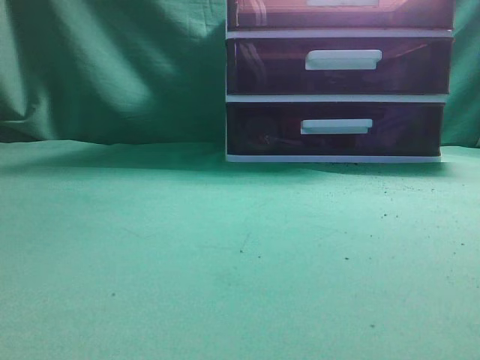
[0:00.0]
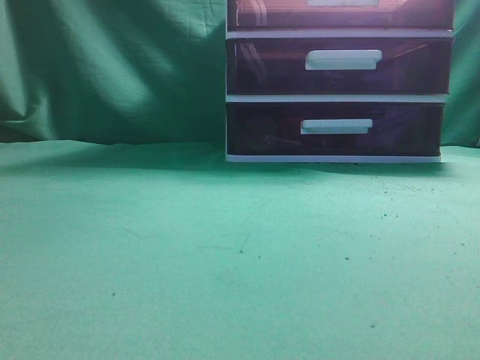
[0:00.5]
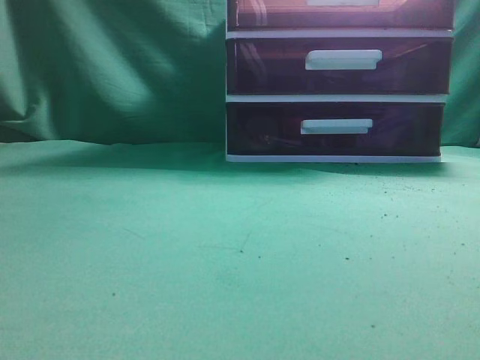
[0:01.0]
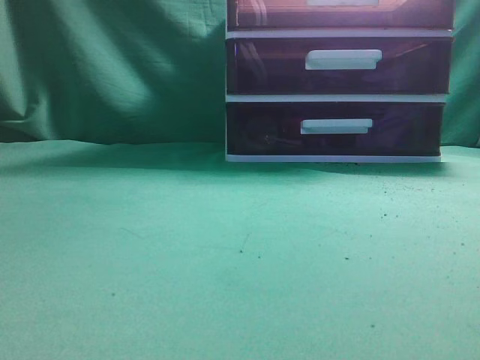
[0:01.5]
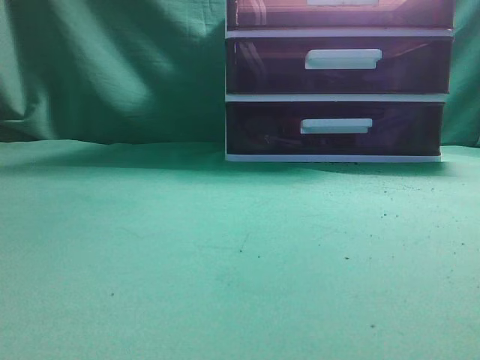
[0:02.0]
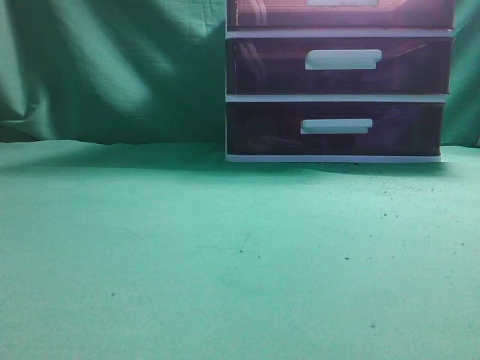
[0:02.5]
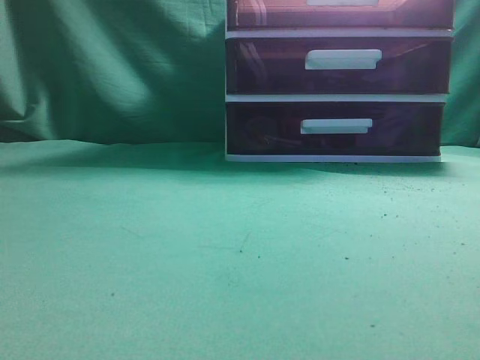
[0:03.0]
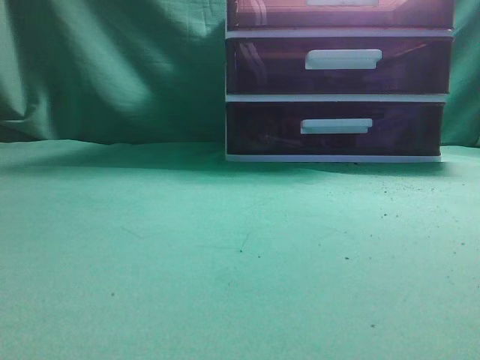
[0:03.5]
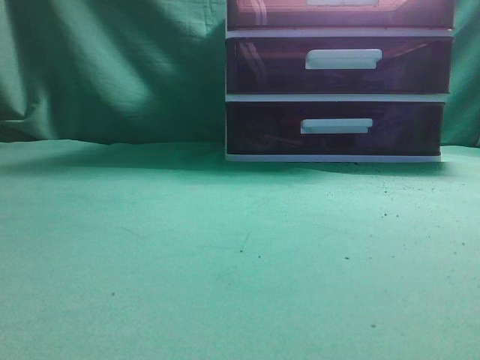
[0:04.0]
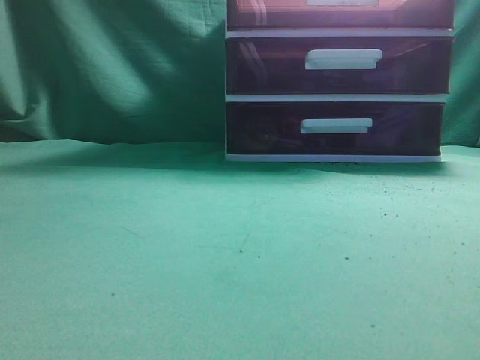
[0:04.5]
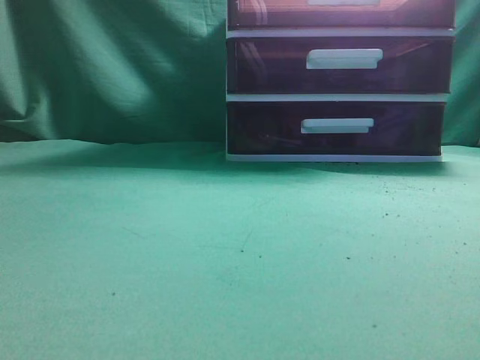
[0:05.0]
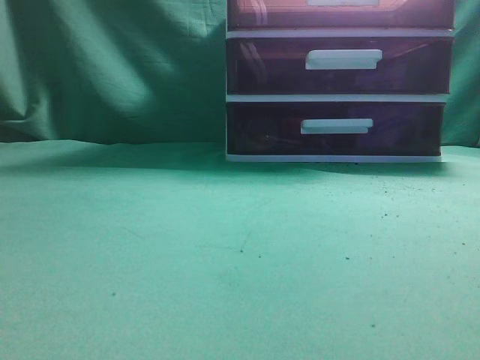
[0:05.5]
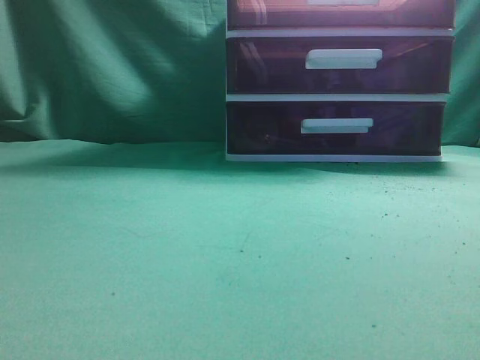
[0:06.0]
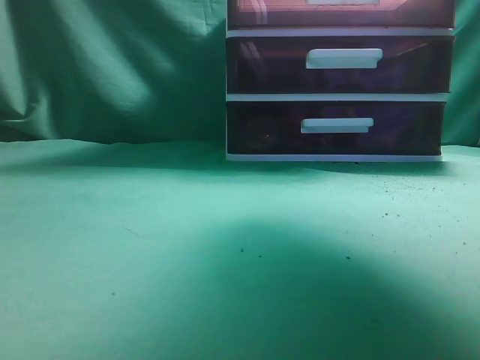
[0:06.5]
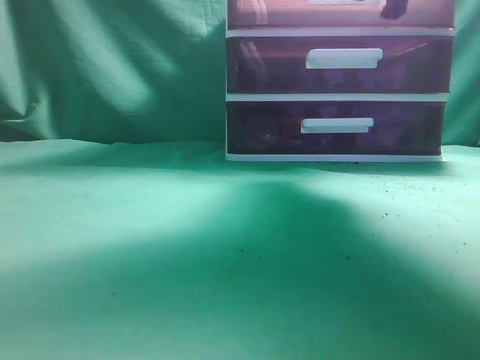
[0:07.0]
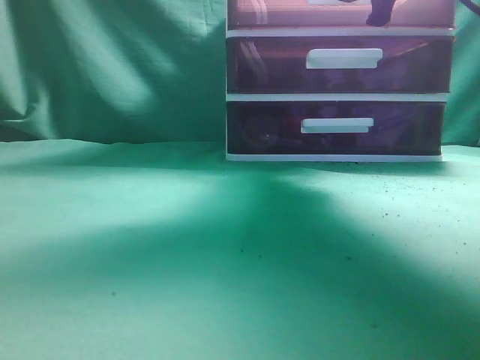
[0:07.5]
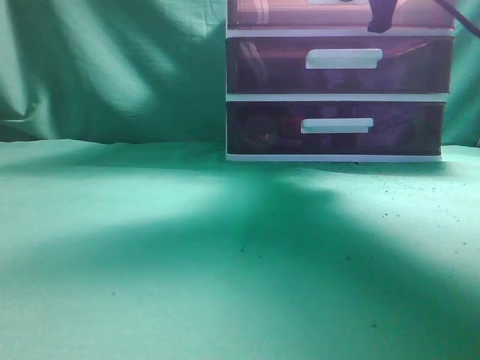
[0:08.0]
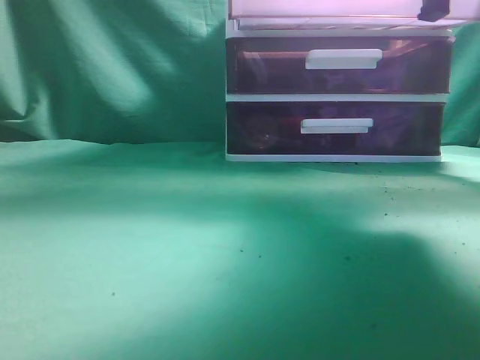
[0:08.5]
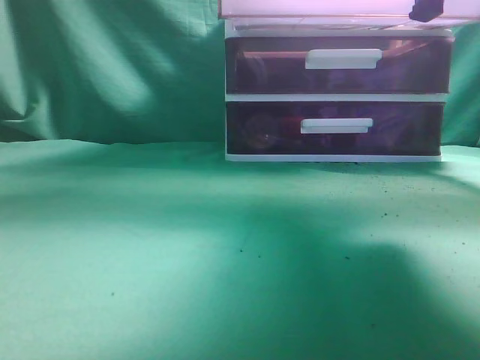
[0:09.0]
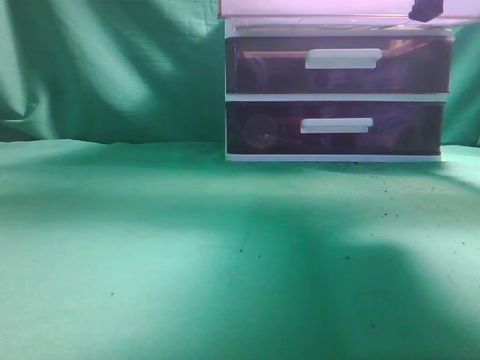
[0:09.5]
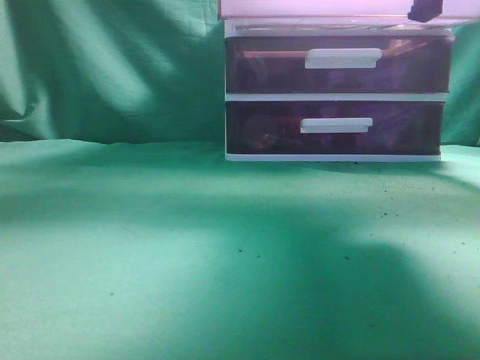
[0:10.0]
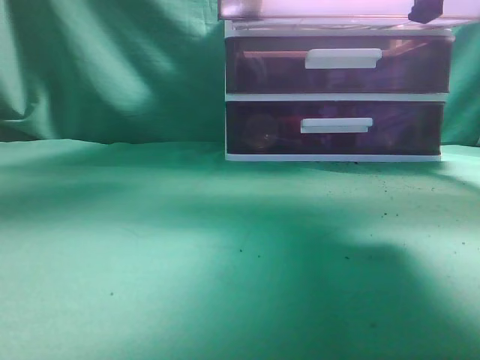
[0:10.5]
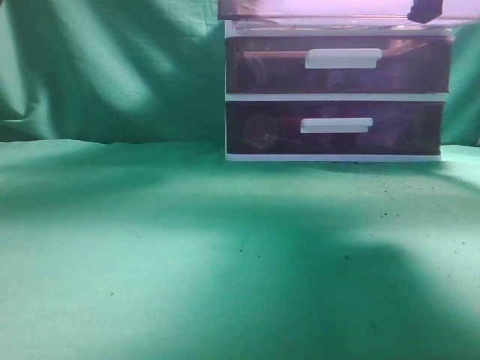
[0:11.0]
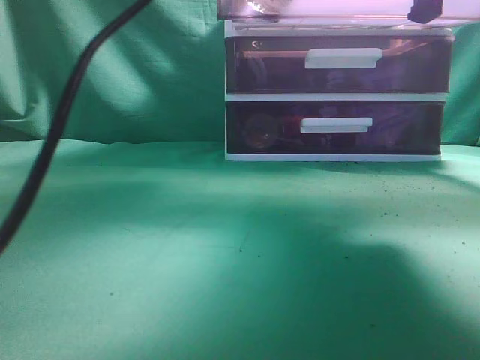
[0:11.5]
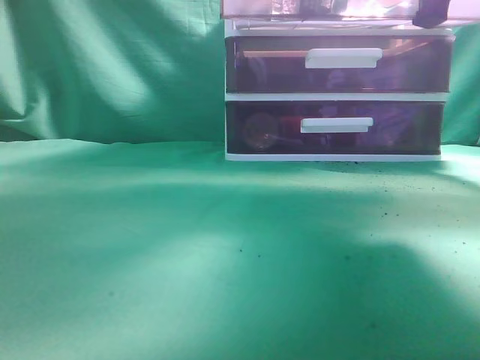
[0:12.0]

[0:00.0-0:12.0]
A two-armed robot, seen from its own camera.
Task of the whole recording: place the water bottle into the drawer.
Step, 0:00.0 to 0:09.0: Open the drawer.
0:06.0 to 0:08.0: The right gripper shifts about 25 cm forward.
0:08.0 to 0:10.0: The left gripper heads to the right, forward and upward, covering approximately 25 cm, while the right gripper travels backward by some 10 cm.
0:10.0 to 0:12.0: The left gripper travels to the right, forward and downward by approximately 15 cm, and opens up.

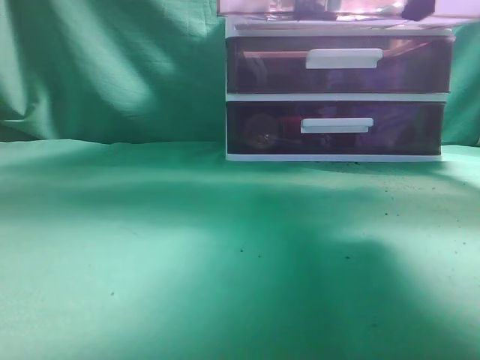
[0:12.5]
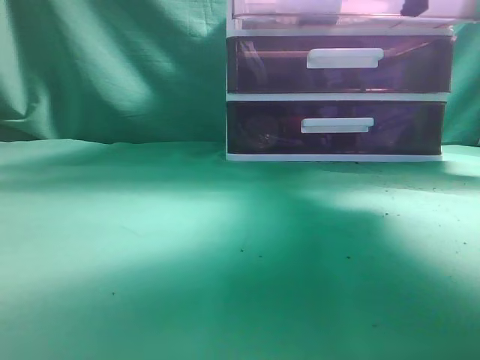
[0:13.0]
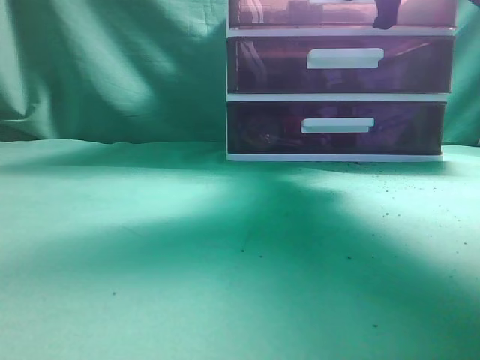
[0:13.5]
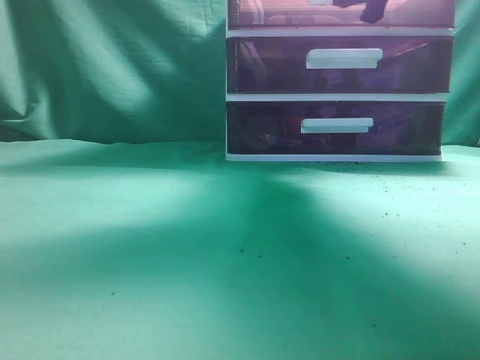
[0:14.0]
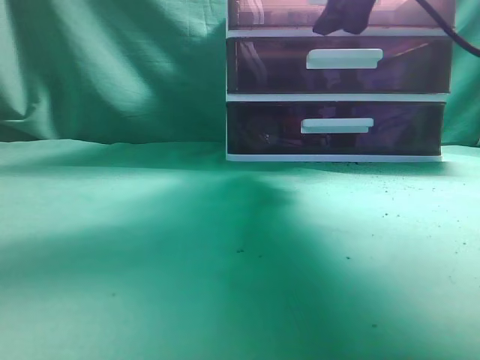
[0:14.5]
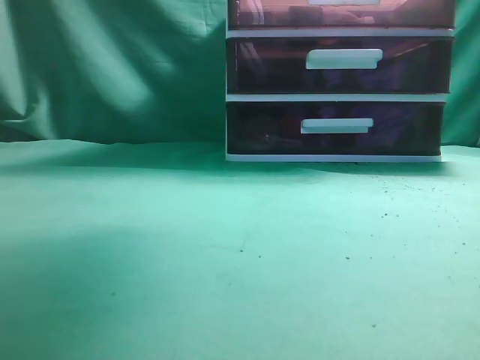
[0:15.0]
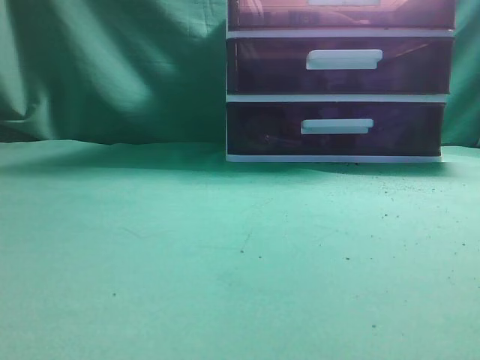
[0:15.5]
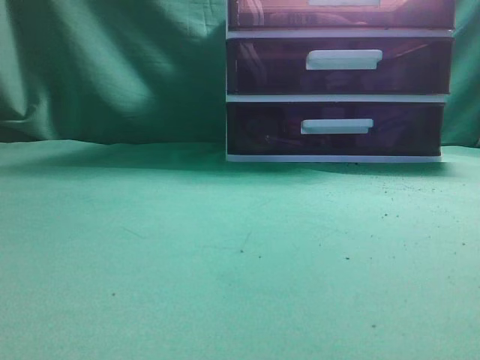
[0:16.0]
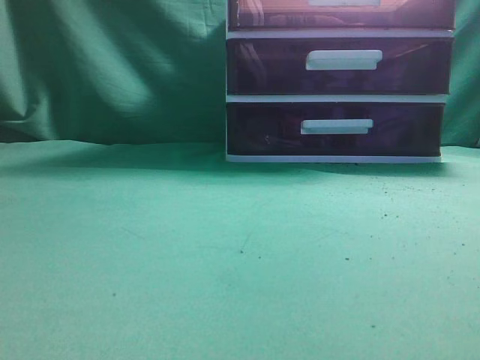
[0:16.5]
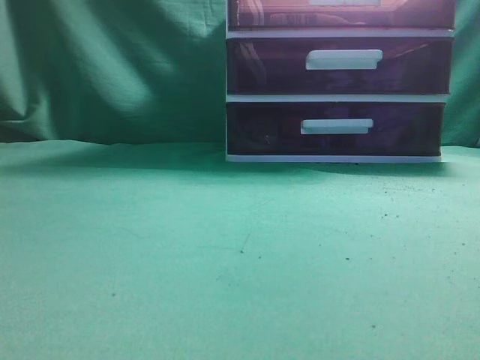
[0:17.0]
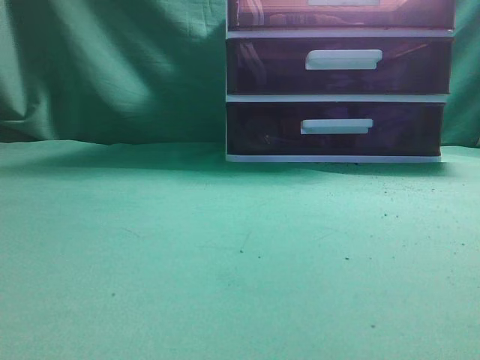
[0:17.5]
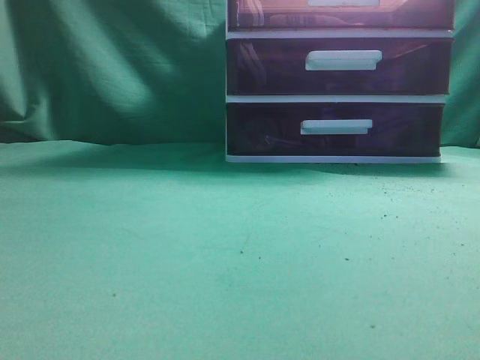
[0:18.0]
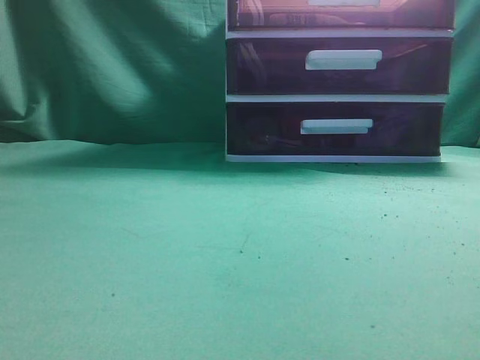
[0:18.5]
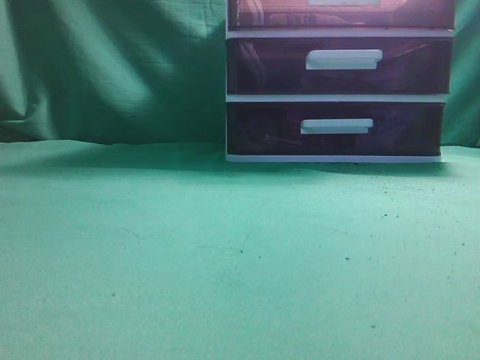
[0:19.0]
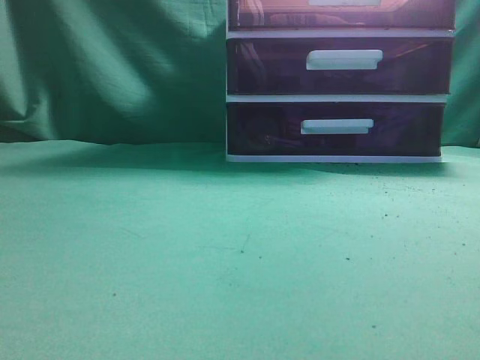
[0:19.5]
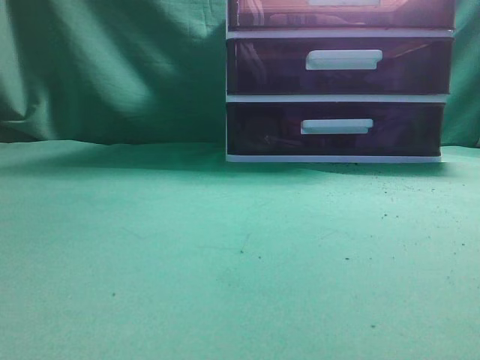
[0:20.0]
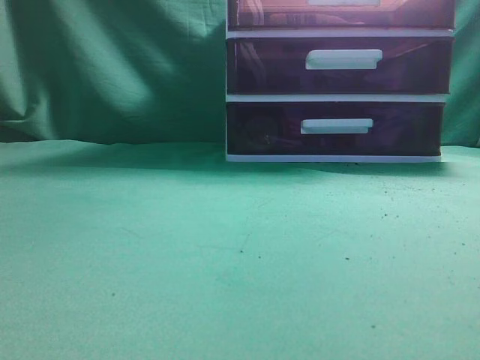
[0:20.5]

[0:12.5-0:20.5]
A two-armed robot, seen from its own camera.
Task of the whole recording: place the water bottle into the drawer.
Step, 0:12.5 to 0:14.5: Close the drawer.
0:12.5 to 0:14.5: The right gripper shifts approximately 10 cm forward, and opens; the left gripper goes approximately 20 cm backward and to the left.
0:14.5 to 0:16.5: The left gripper shifts some 25 cm downward, backward and to the left. Meanwhile the right gripper moves backward, about 40 cm, and closes.
